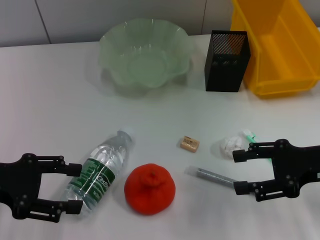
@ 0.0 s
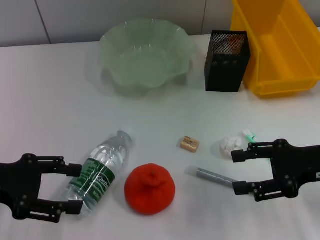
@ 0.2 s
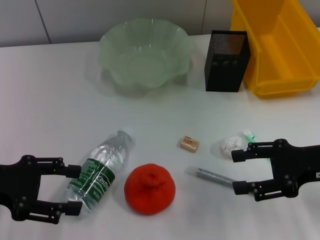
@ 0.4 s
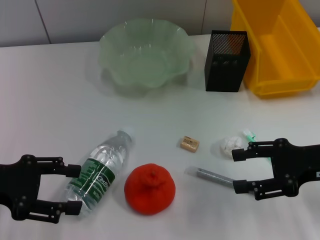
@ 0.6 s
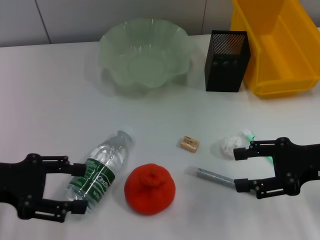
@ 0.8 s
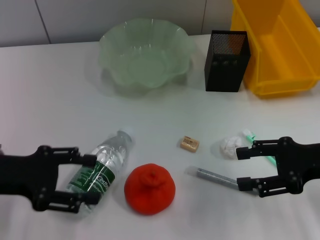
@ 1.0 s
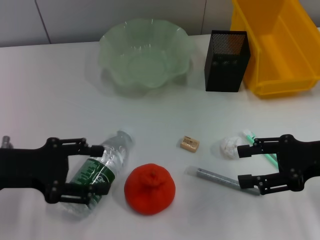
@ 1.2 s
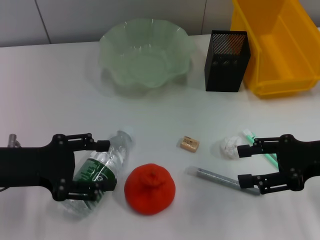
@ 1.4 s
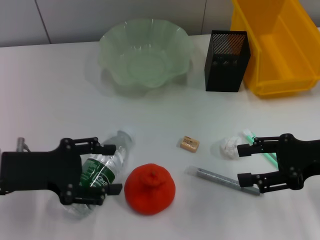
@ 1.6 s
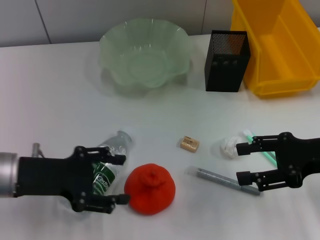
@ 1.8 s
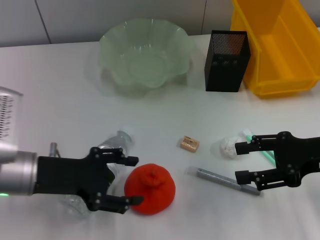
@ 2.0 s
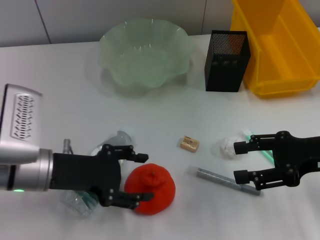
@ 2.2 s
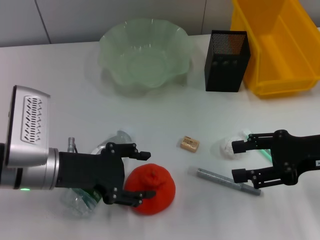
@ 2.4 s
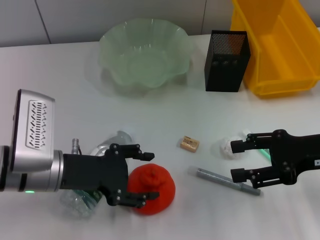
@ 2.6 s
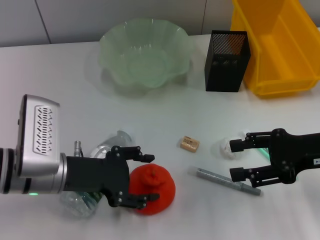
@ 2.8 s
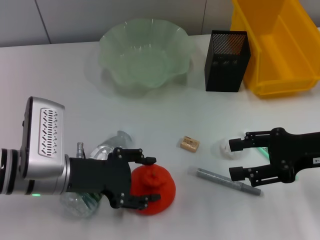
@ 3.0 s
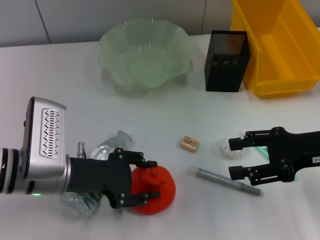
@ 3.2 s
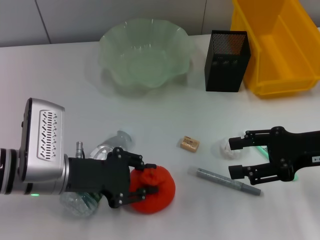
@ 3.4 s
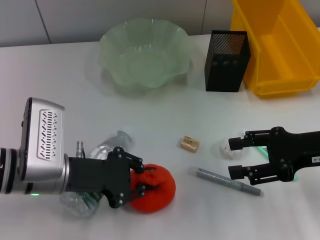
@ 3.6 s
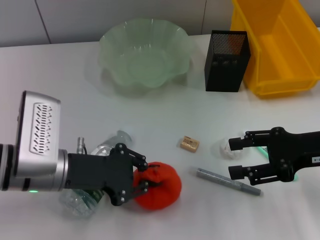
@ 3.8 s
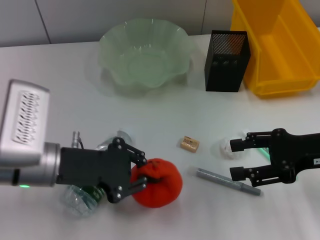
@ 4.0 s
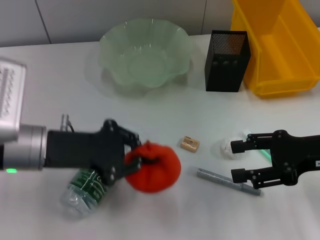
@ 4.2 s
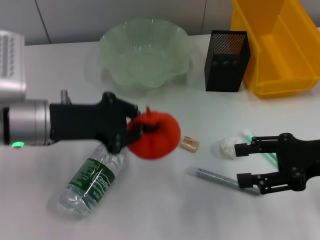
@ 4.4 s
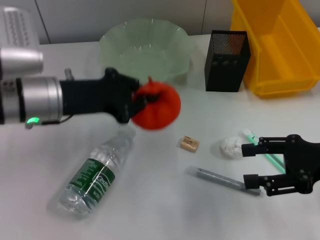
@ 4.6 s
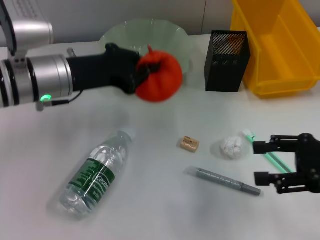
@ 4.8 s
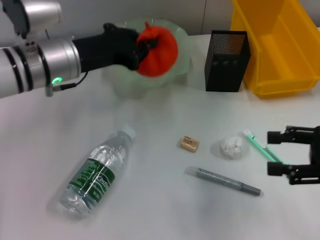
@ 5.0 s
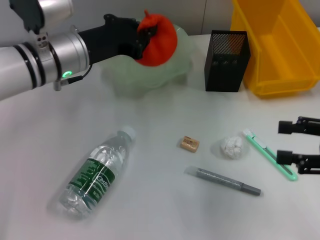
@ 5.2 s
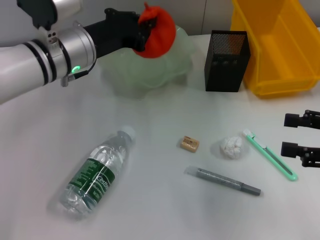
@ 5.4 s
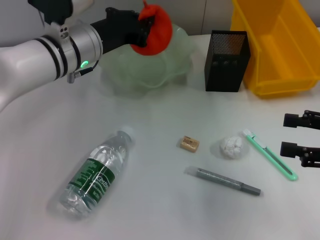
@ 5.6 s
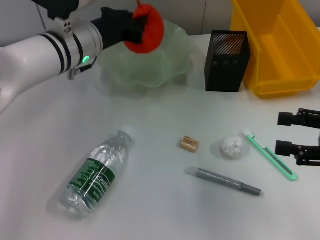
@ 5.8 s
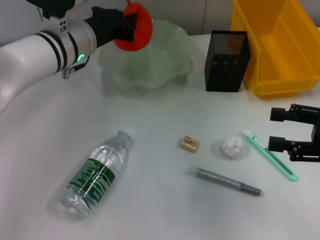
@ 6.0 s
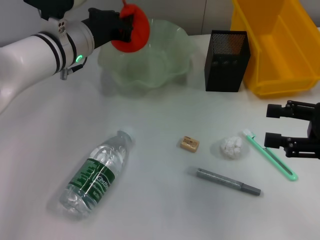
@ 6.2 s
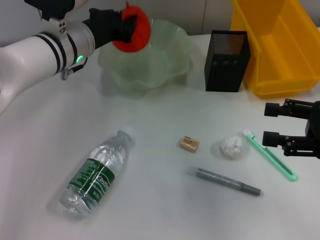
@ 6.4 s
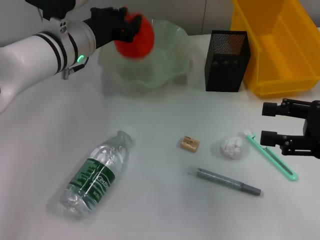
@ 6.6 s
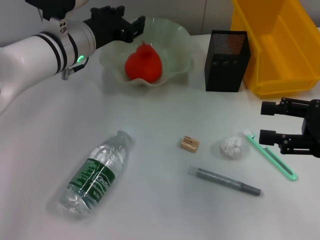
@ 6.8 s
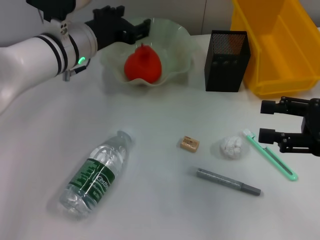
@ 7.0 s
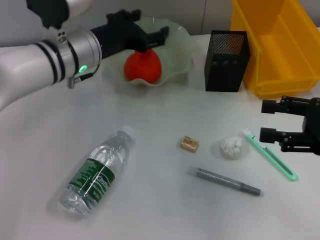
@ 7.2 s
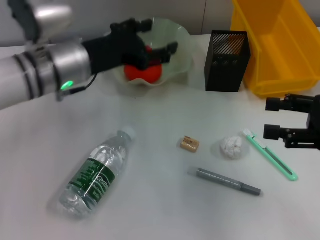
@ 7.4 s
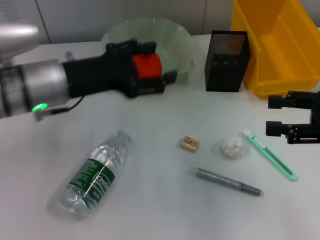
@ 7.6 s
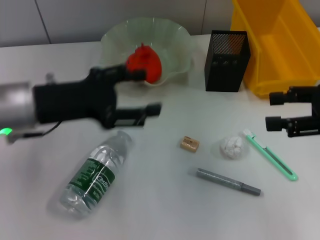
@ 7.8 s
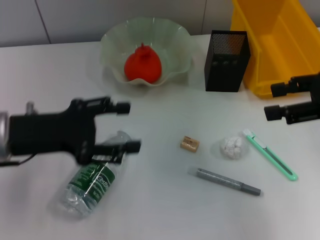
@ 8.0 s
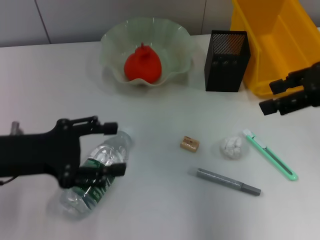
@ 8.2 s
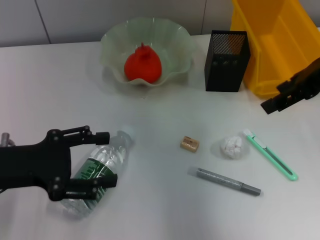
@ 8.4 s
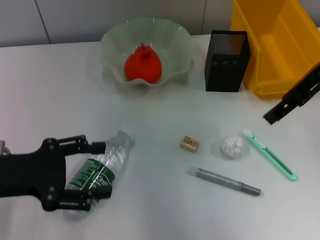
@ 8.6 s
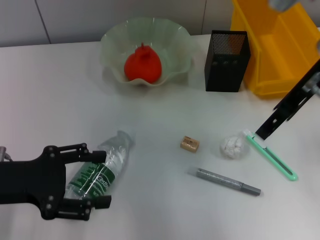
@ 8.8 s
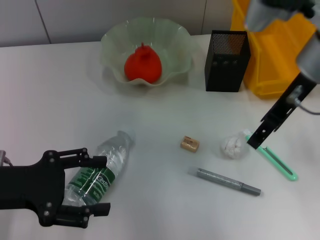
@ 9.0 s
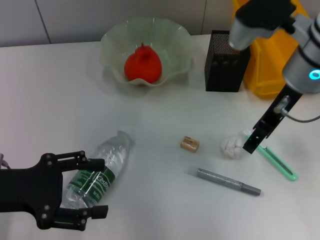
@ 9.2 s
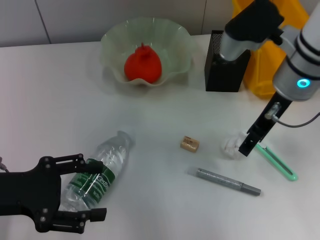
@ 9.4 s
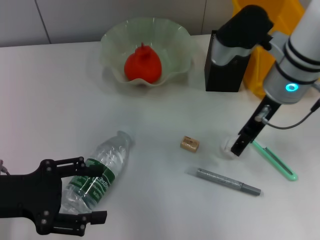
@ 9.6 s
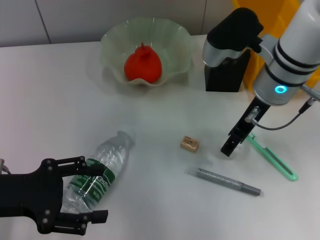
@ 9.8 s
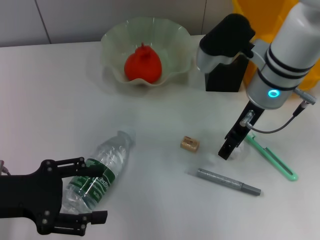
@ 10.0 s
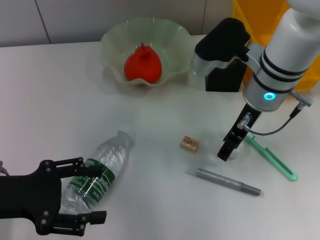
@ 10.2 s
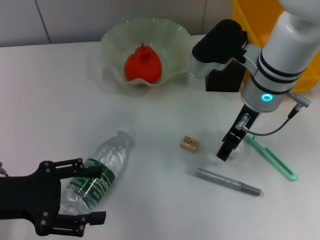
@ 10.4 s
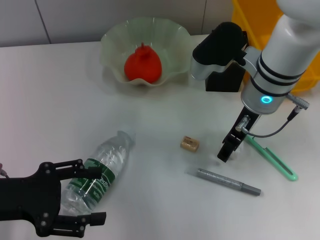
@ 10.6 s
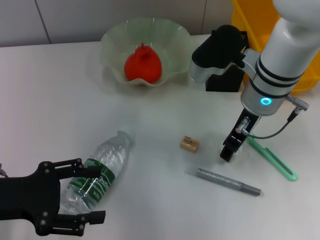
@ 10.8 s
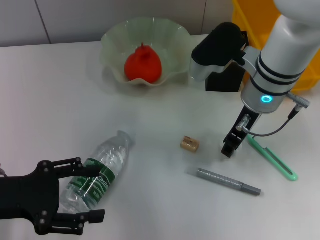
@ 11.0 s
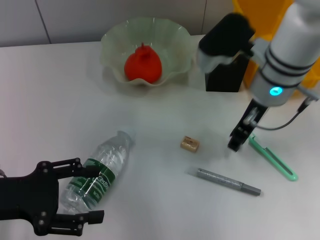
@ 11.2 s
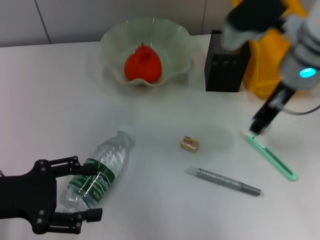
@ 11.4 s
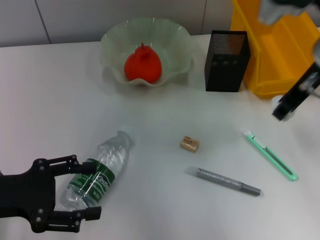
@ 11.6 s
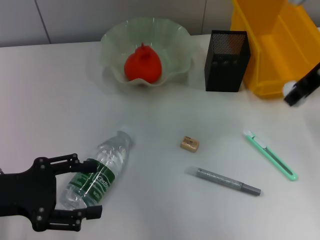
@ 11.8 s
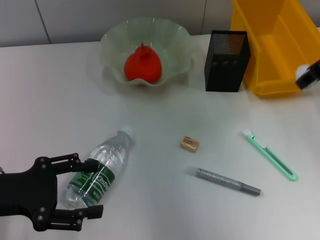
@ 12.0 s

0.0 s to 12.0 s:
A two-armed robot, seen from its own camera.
Step, 0.0 to 3.4 s: Grab the orange with the left hand.
Step, 3.6 to 6.8 s: Place the orange into the fruit bowl with the left hand.
Step, 7.0 to 11.0 s: Grab the paper ball with the right hand.
0.0 to 1.6 s: The left gripper changes place by roughly 5 cm.
1.6 to 3.0 s: The left gripper shifts roughly 5 cm to the right.
3.0 to 4.4 s: The left gripper moves upward, approximately 5 cm, and closes.
4.4 to 6.0 s: The left gripper moves forward and to the right, approximately 15 cm.
6.0 to 7.6 s: The left gripper shifts some 10 cm backward, and opens.
7.6 to 9.0 s: The left gripper heads to the left and backward, covering about 15 cm, while the right gripper shifts approximately 20 cm to the left, forward and upward.
9.0 to 10.4 s: The right gripper heads downward, covering roughly 5 cm.
10.4 to 12.0 s: The right gripper is displaced to the right and upward by some 15 cm, and closes up.

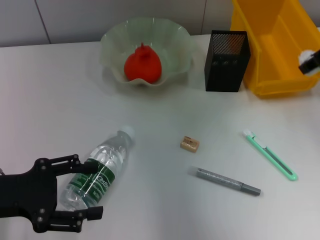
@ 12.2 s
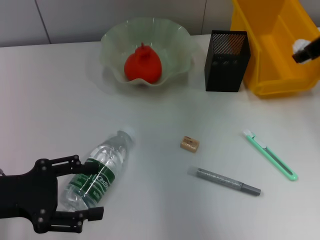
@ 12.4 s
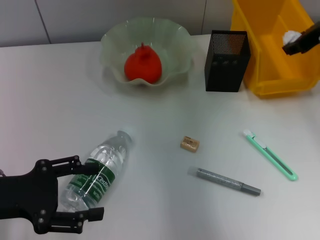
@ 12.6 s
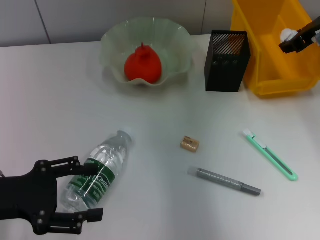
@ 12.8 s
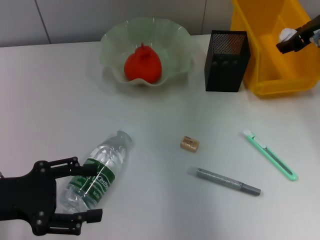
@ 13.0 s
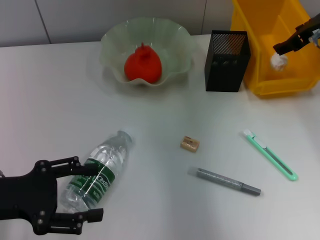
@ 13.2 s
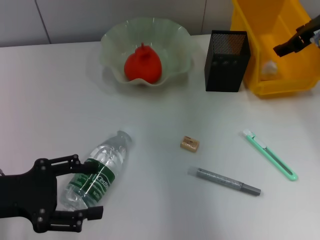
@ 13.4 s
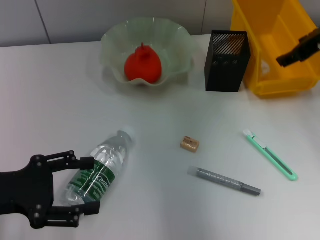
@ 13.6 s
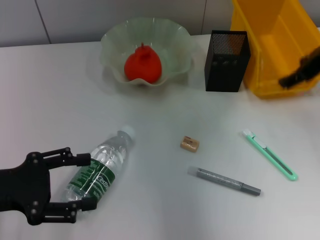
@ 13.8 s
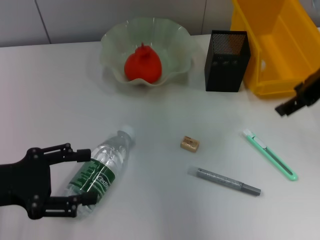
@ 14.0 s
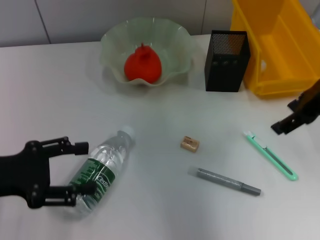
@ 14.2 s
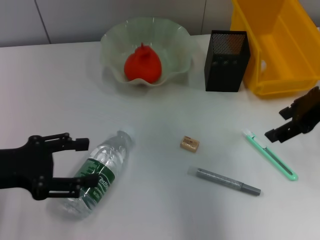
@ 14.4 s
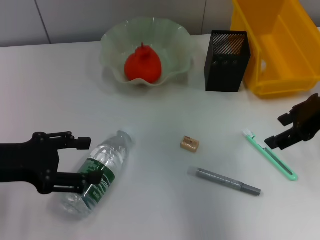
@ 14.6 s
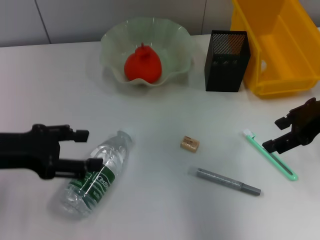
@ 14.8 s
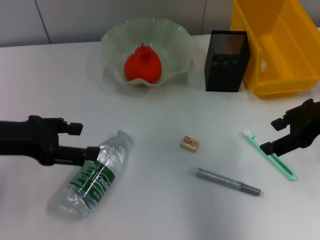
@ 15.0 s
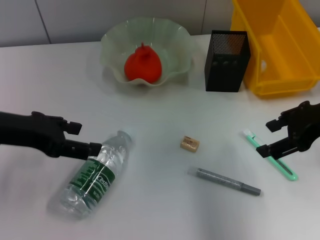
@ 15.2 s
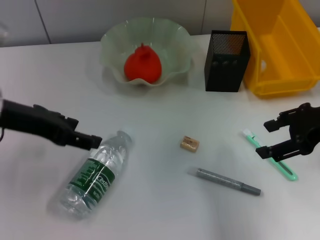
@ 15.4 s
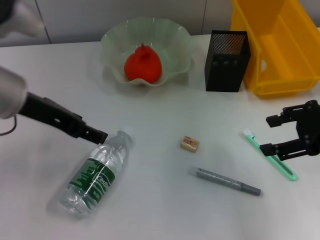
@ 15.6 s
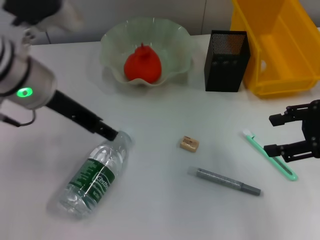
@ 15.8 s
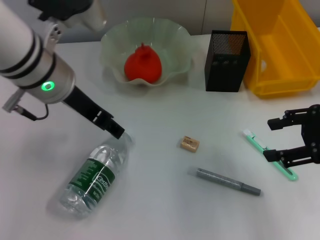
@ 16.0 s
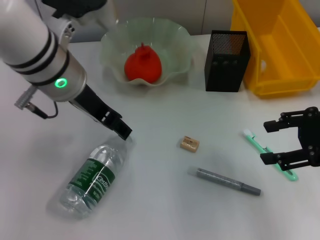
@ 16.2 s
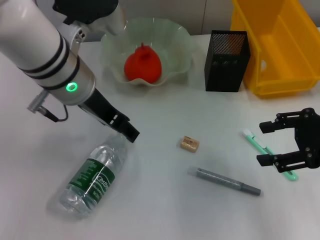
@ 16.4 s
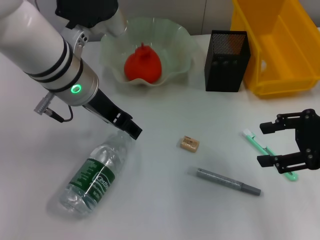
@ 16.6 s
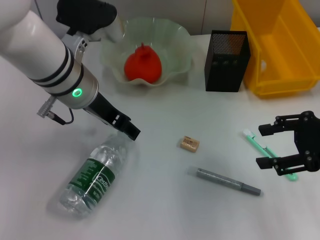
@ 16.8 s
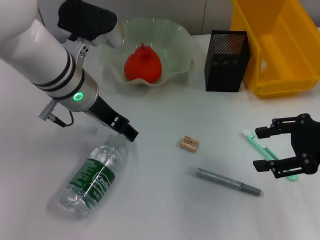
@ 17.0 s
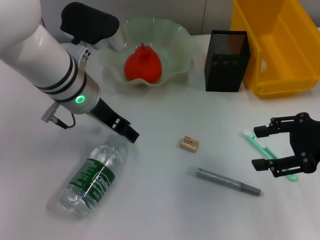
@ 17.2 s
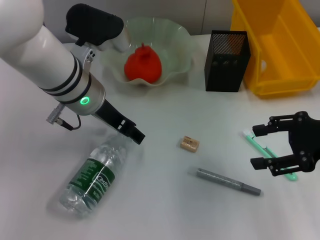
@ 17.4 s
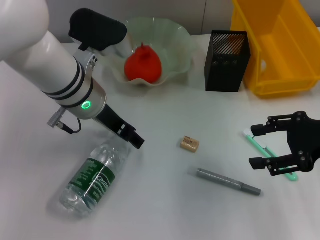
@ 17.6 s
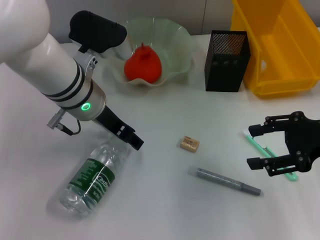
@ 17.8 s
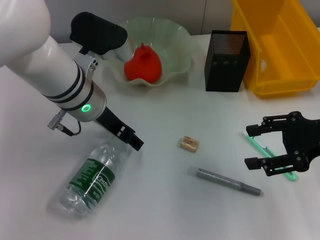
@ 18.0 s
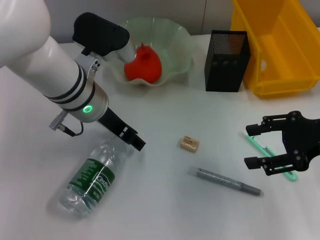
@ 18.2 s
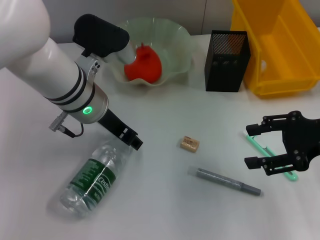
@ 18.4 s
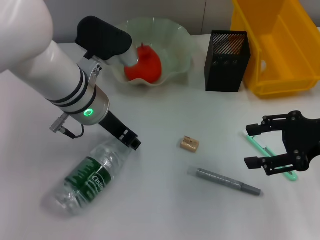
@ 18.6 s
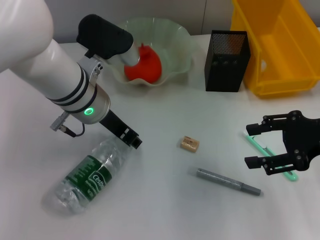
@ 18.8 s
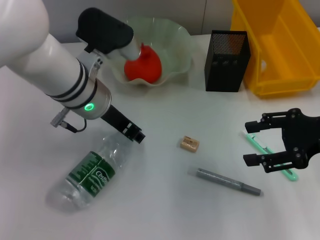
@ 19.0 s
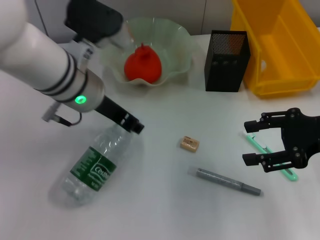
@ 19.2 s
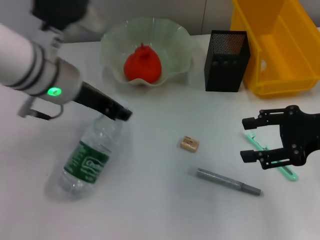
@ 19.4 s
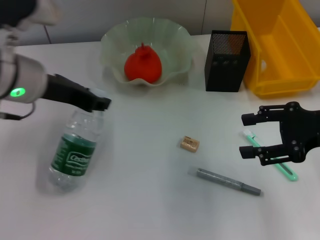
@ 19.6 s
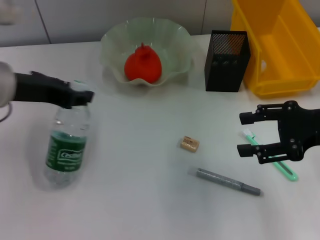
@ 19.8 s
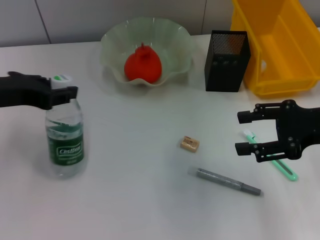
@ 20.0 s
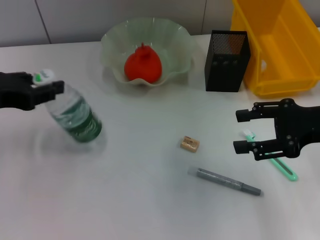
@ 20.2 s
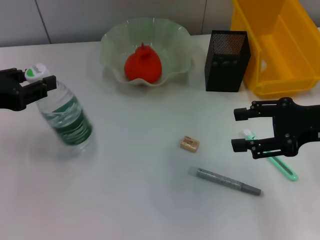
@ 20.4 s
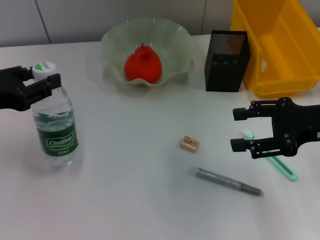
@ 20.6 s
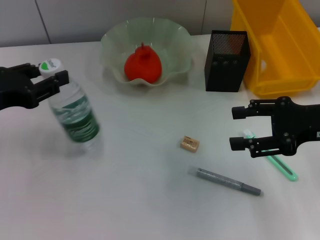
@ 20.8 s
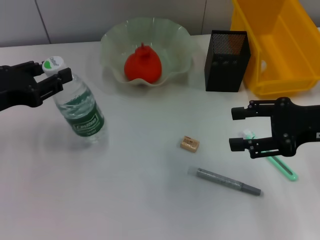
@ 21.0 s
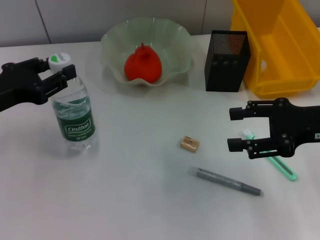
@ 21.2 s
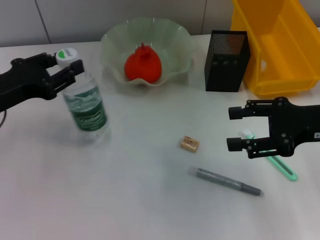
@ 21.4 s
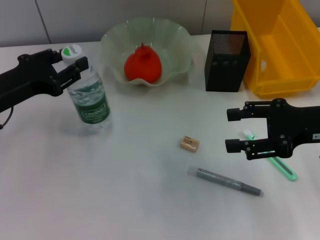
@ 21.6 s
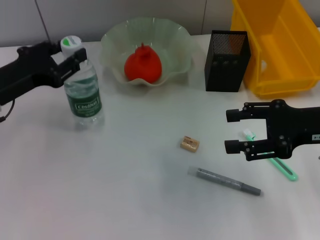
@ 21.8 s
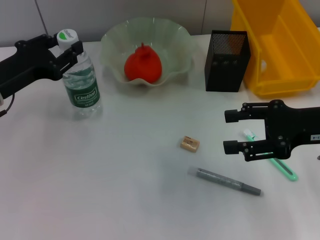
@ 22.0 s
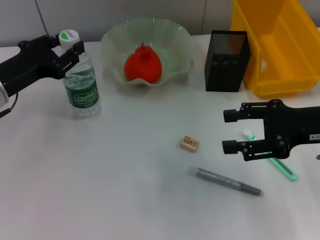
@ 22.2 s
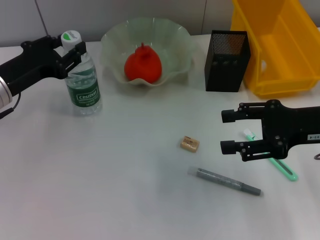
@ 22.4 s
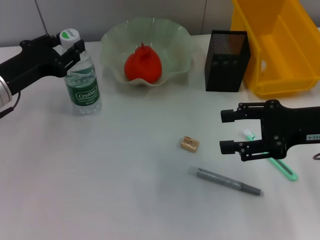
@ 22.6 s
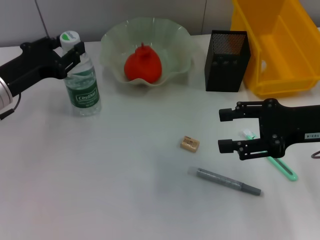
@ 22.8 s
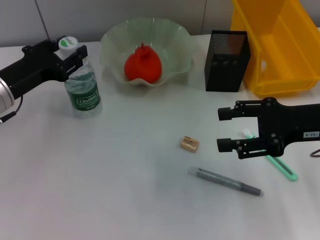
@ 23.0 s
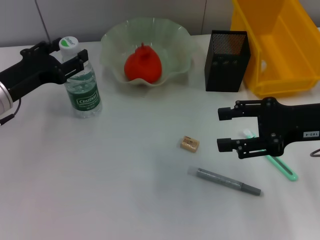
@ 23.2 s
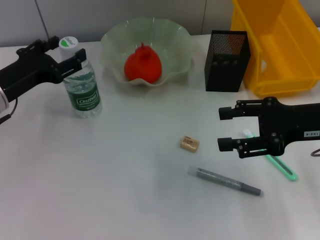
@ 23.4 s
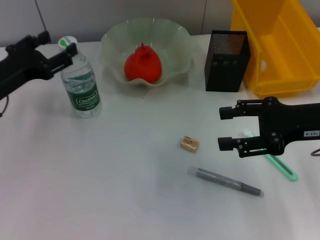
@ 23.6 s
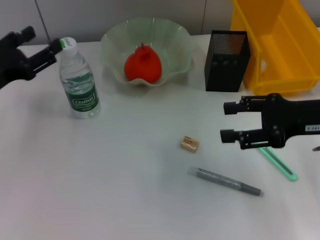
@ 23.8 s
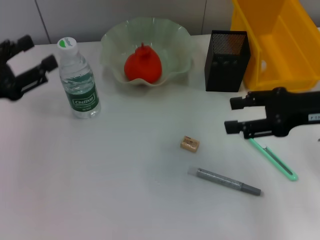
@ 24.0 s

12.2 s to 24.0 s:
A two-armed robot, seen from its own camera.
Step, 13.4 to 19.0 s: Grab the water bottle with the left hand.
Step, 19.2 to 23.2 s: Place the water bottle on the table with the left hand.
12.2 to 13.6 s: The right gripper opens its fingers.
13.6 to 15.2 s: The left gripper moves upward and forward, about 10 cm, while the right gripper goes some 10 cm backward.
15.2 to 16.6 s: The left gripper shifts some 15 cm to the right and forward, while the right gripper changes place by roughly 5 cm.
16.6 to 18.2 s: There are only small adjustments of the grippers.
18.2 to 19.6 s: The left gripper heads to the left and upward, covering approximately 10 cm, and closes its fingers.
19.6 to 21.0 s: The left gripper travels to the left and backward by approximately 10 cm.
21.0 to 22.6 s: The left gripper shifts roughly 5 cm forward.
22.6 to 24.0 s: The left gripper moves to the left and backward, some 10 cm, and opens up.
